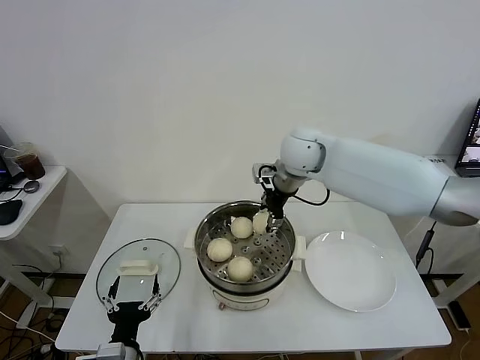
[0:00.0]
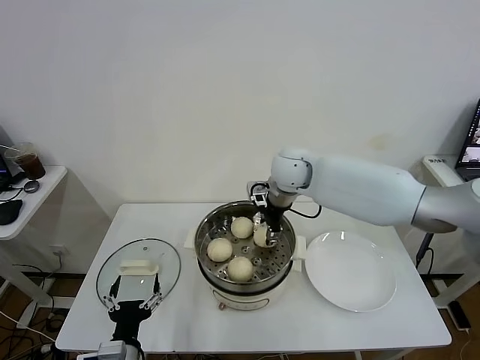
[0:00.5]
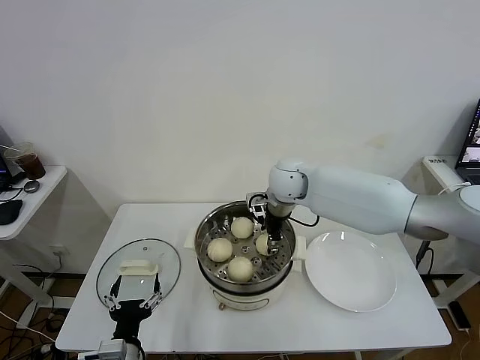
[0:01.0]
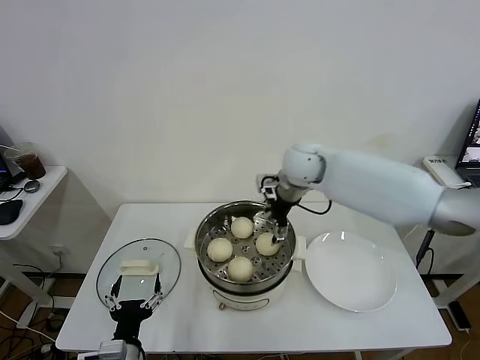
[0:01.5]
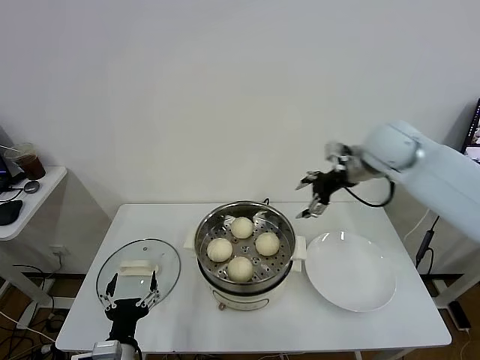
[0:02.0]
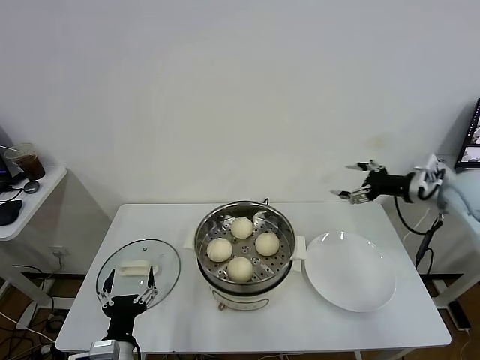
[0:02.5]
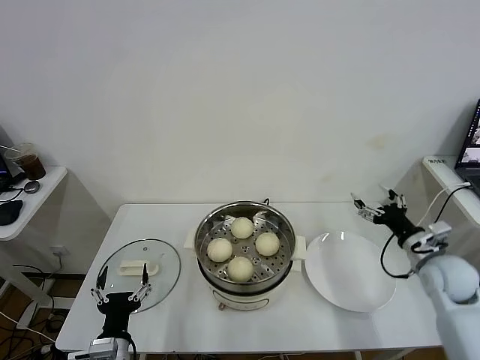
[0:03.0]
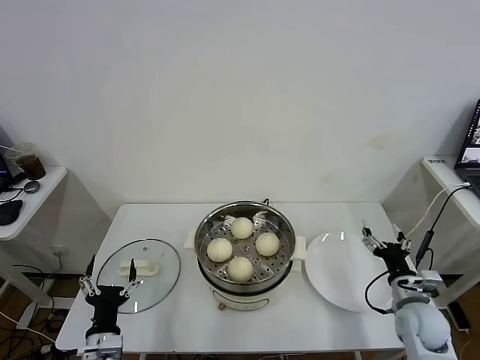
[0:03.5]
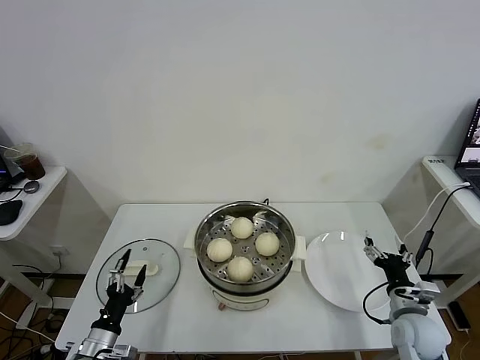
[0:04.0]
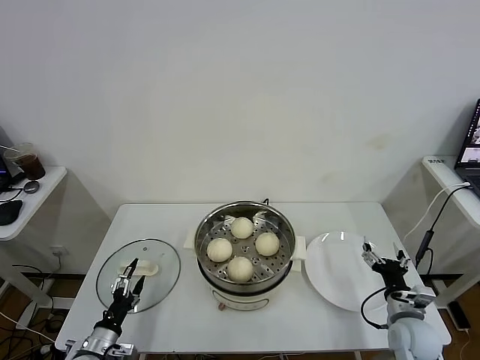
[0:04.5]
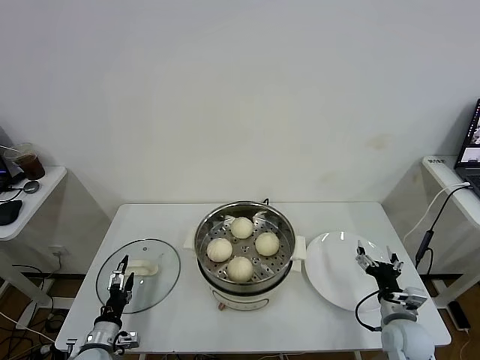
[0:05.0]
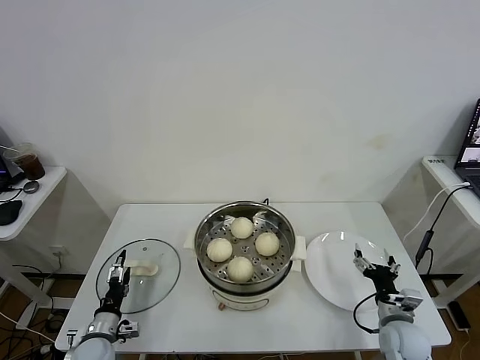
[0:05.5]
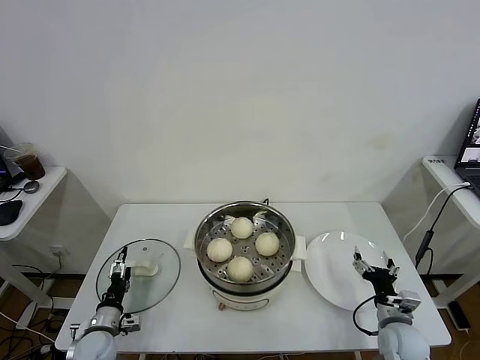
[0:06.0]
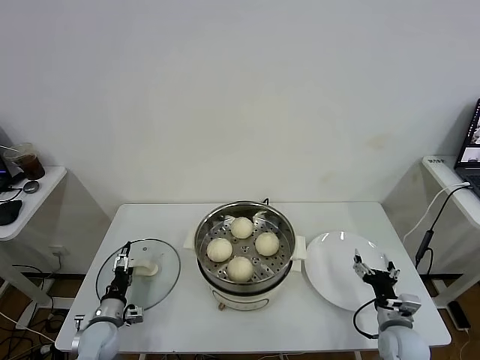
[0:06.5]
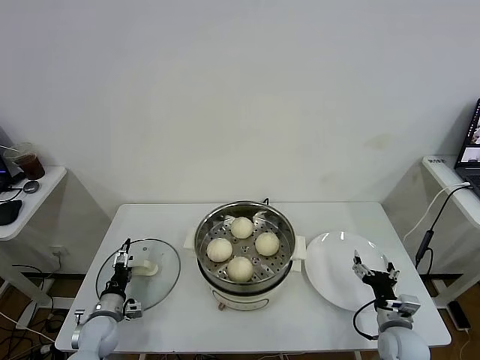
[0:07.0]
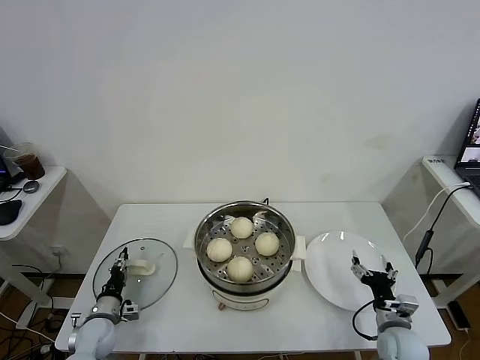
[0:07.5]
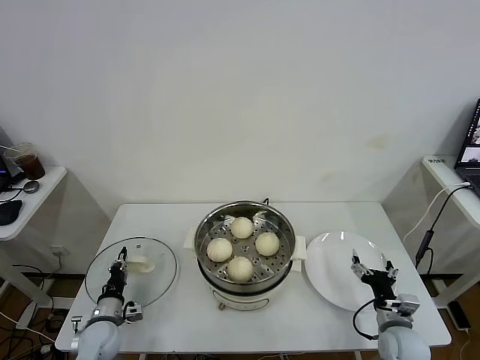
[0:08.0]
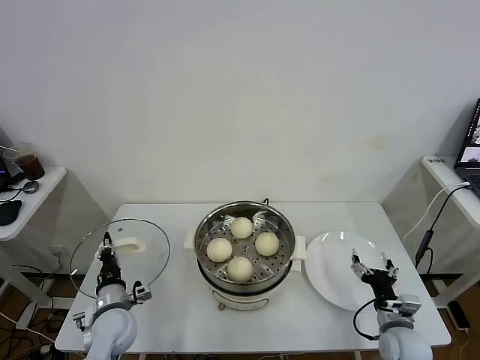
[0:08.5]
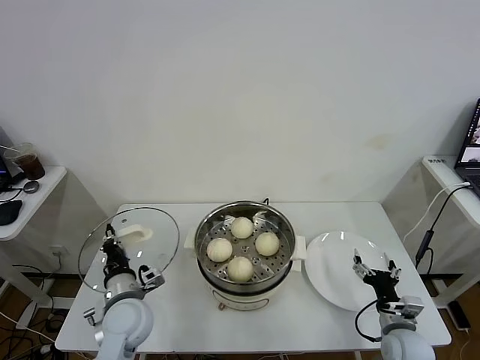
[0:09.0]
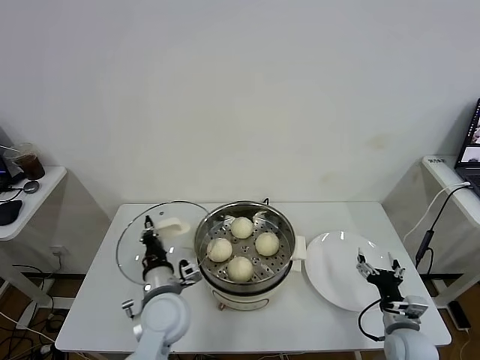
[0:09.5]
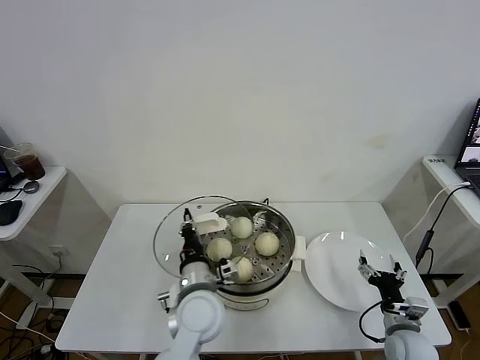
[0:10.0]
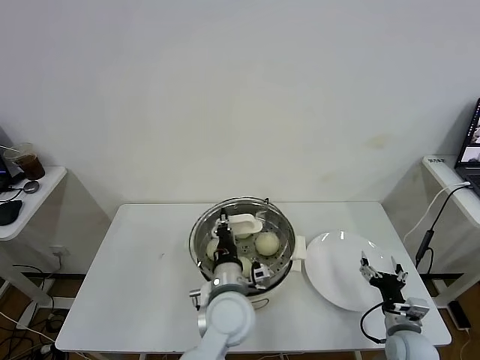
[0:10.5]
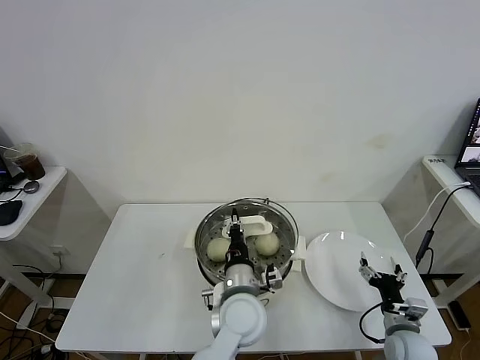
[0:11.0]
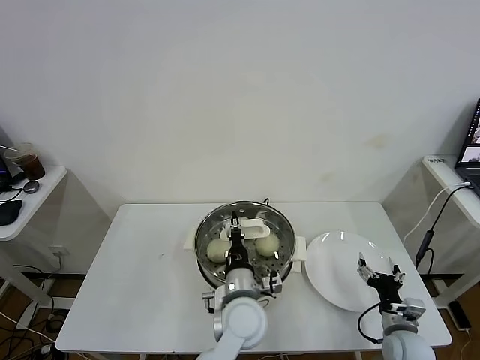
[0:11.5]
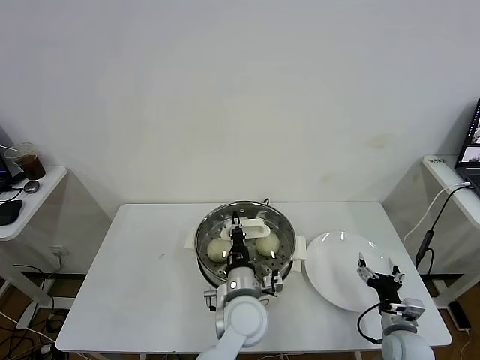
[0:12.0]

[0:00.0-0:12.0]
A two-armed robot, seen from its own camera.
Task of the whole recording: take steamed baozi put them in steamer.
Step, 0:00.0 to 0:01.5: Place the baozi on the steamer with right gripper.
Step, 0:02.0 to 0:08.0: Grasp the pot lid with left gripper.
0:00.0 to 0:02.0: The right gripper shifts roughly 15 cm to the right, and opens up.
0:02.0 to 0:04.0: The left gripper is displaced to the left and downward by about 10 cm; the right gripper moves downward and backward, about 40 cm.
0:04.0 to 0:06.0: The left gripper travels forward and downward by some 10 cm.
0:06.0 to 0:08.0: The left gripper closes its fingers.
0:08.0 to 0:10.0: The left gripper heads to the right and upward, covering roughly 30 cm.
0:10.0 to 0:12.0: The left gripper is displaced to the right by approximately 10 cm.

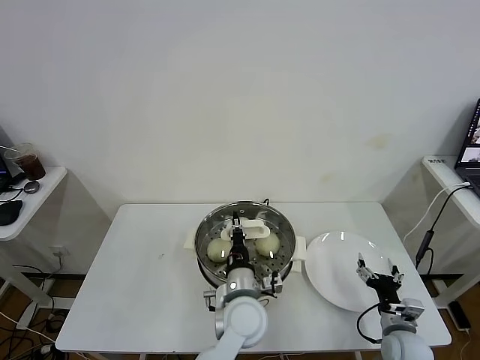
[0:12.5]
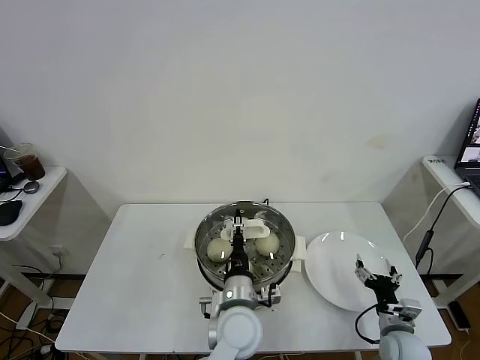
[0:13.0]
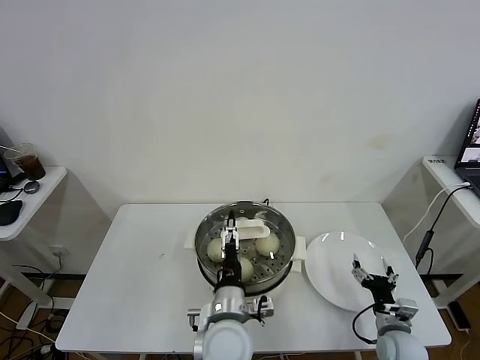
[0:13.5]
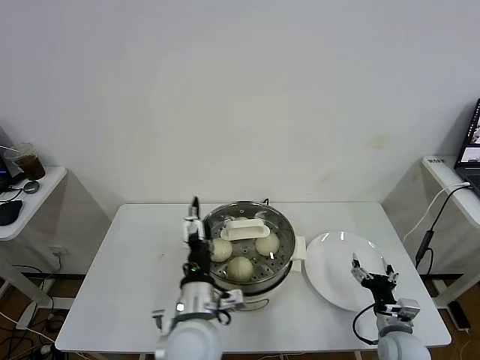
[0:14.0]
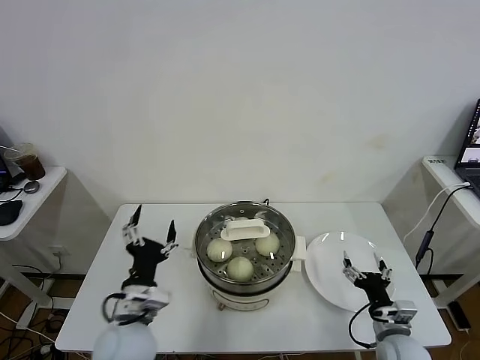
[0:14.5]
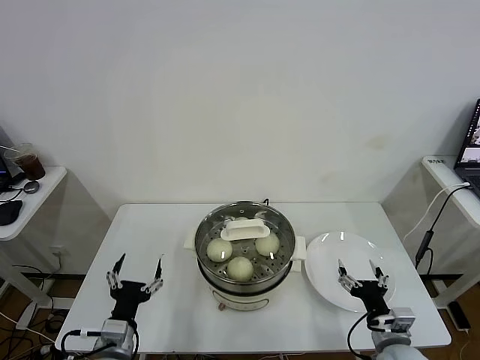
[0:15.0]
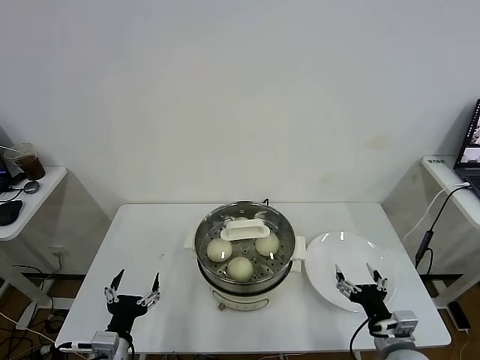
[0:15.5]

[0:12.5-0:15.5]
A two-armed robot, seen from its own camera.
Task of the whole recording: take steamed baozi put them in steamer.
0:12.5 to 0:14.0: The left gripper is displaced to the left and backward by approximately 10 cm, and opens its fingers.
0:14.0 to 0:15.5: The right gripper travels upward and backward by approximately 10 cm. The left gripper shifts about 20 cm to the left and downward.
